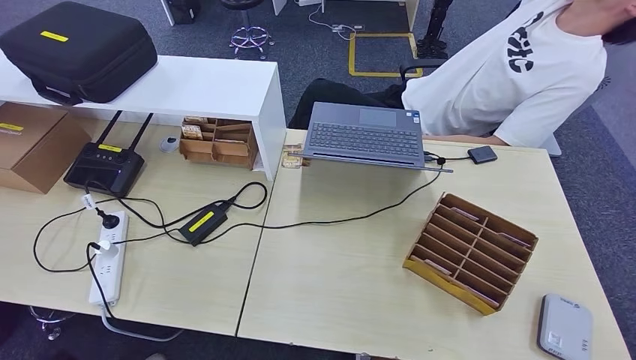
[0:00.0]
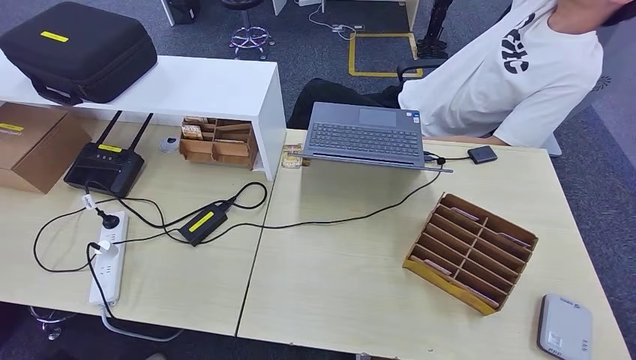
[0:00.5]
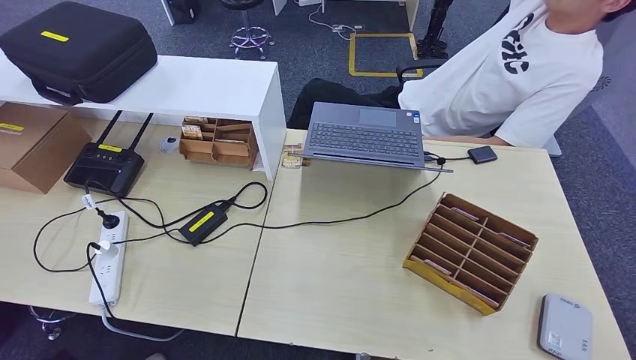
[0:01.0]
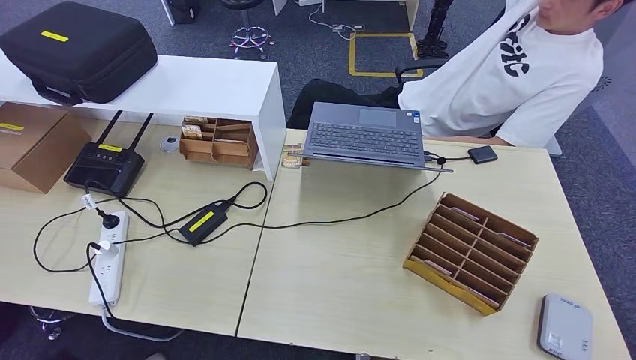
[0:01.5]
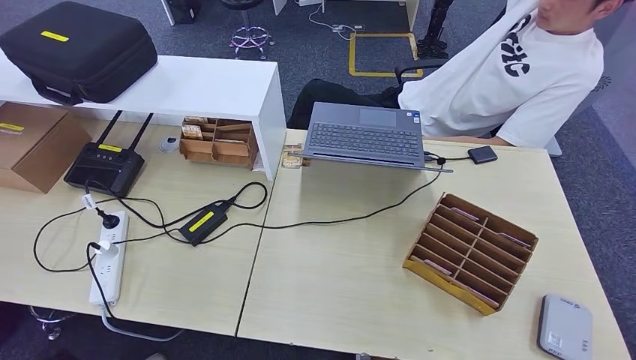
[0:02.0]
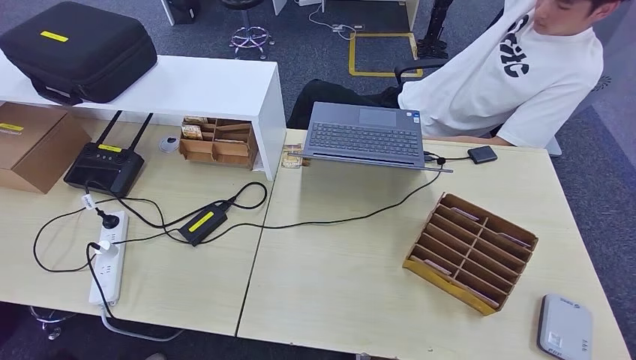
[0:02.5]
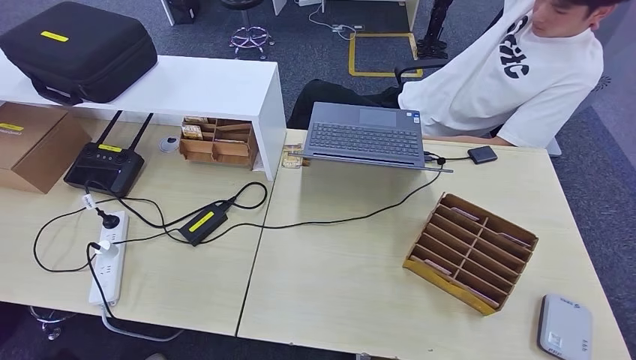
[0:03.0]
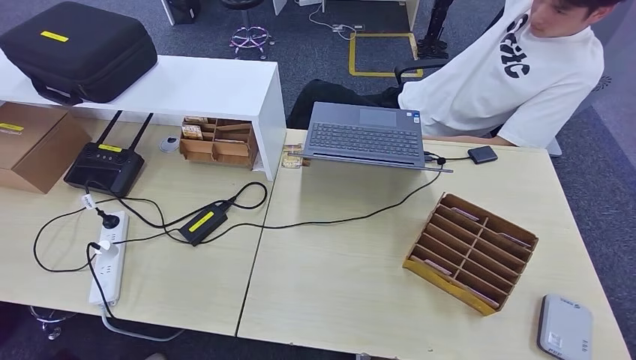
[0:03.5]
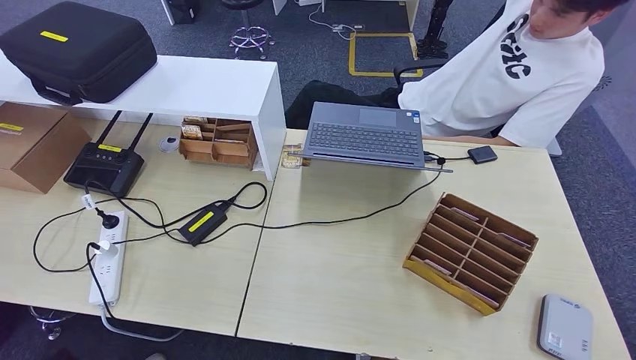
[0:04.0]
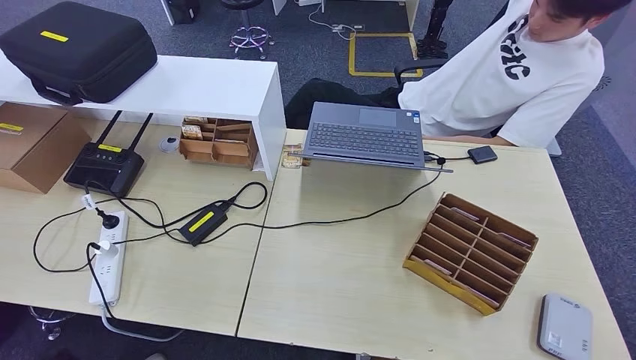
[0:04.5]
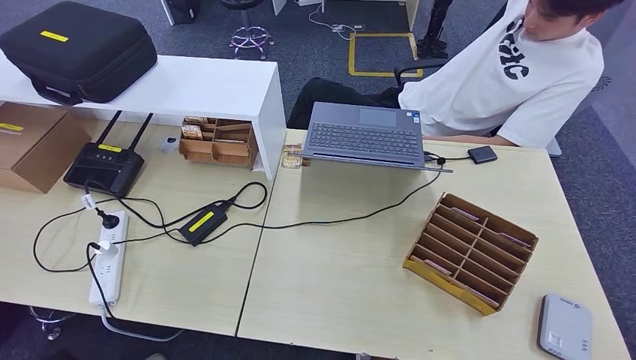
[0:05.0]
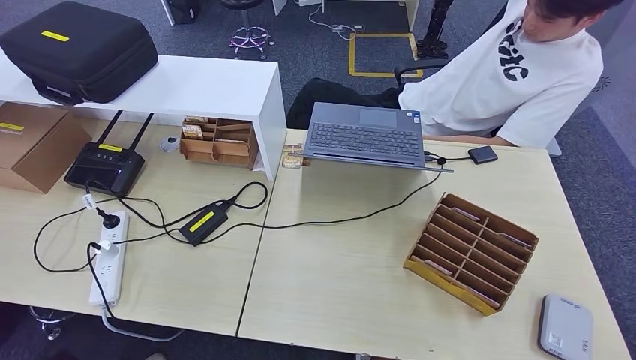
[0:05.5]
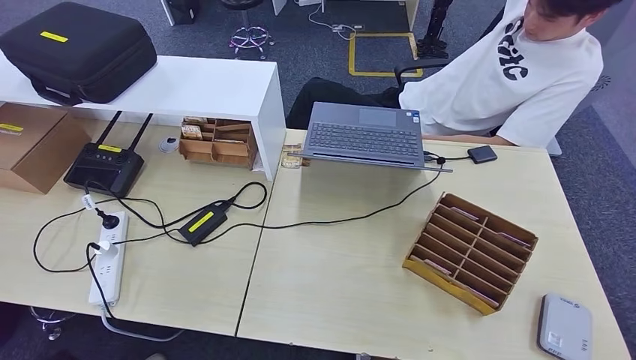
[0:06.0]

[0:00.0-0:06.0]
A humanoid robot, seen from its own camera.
Step, 0:00.0 to 0:06.0: Hand the room key to the person.
0:00.0 to 0:06.0: There are only small adjustments of the hands.
